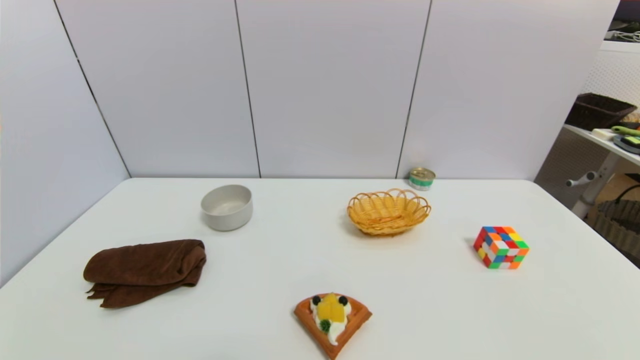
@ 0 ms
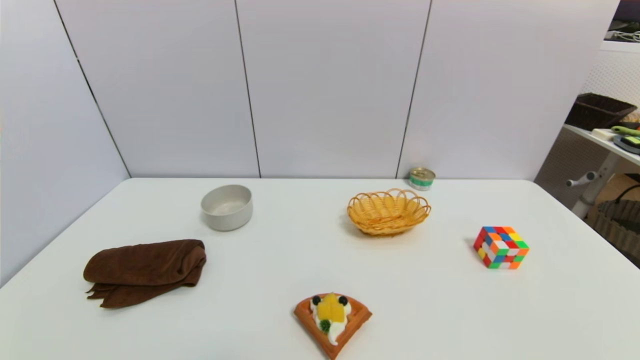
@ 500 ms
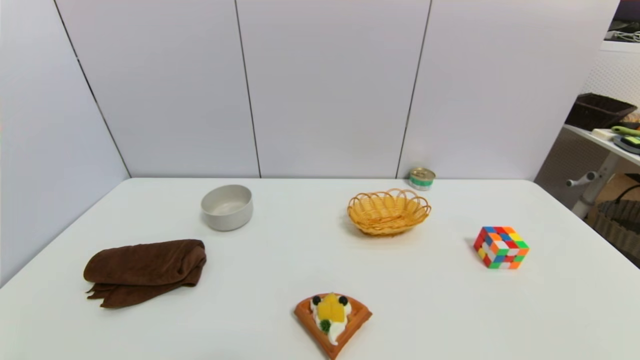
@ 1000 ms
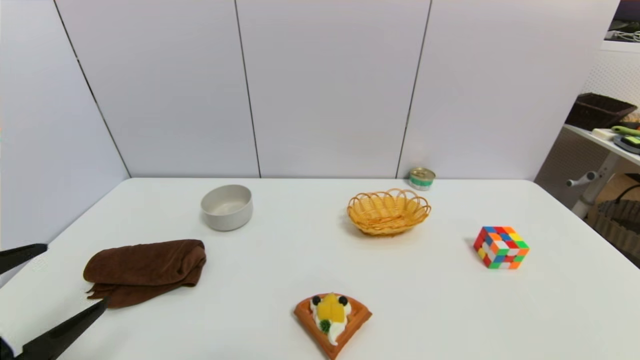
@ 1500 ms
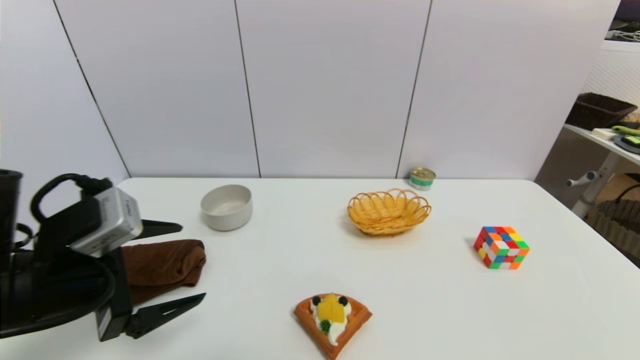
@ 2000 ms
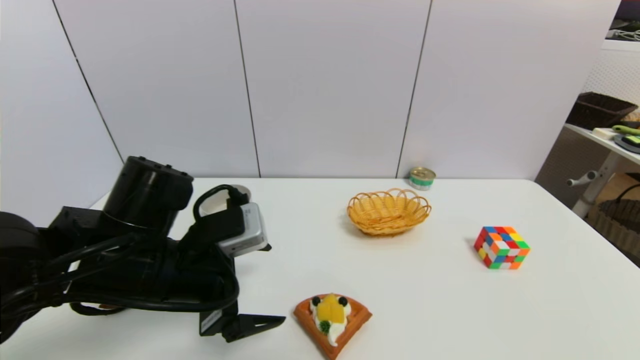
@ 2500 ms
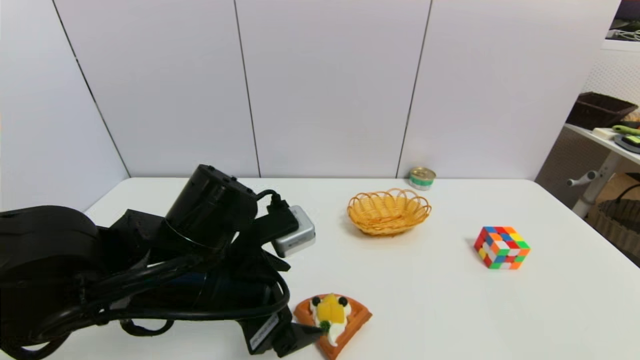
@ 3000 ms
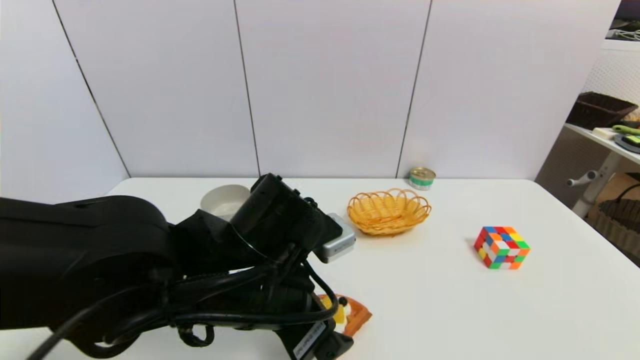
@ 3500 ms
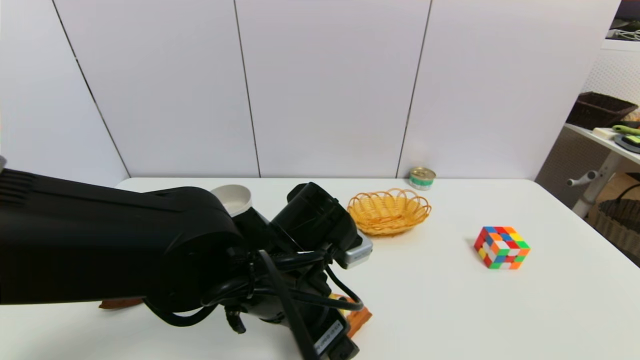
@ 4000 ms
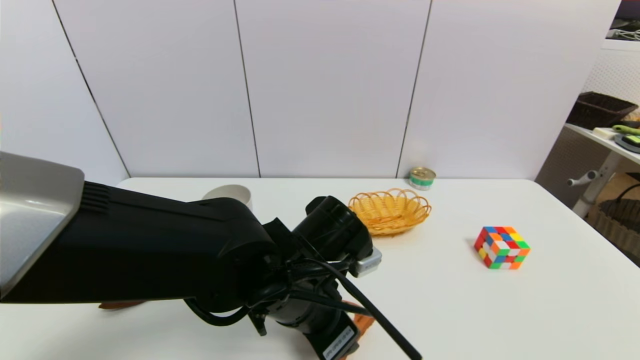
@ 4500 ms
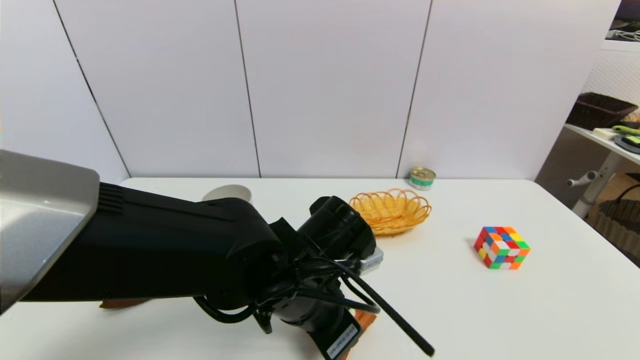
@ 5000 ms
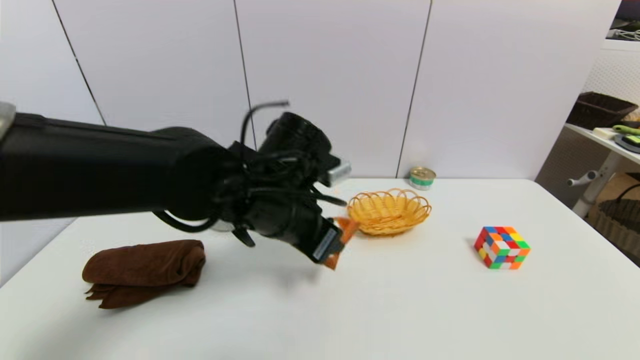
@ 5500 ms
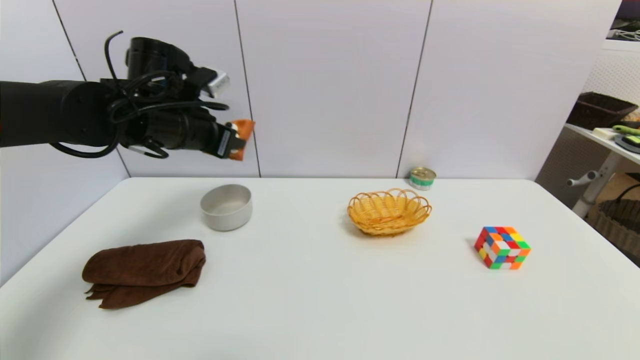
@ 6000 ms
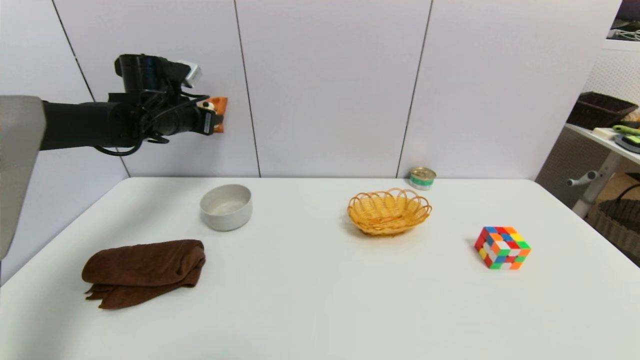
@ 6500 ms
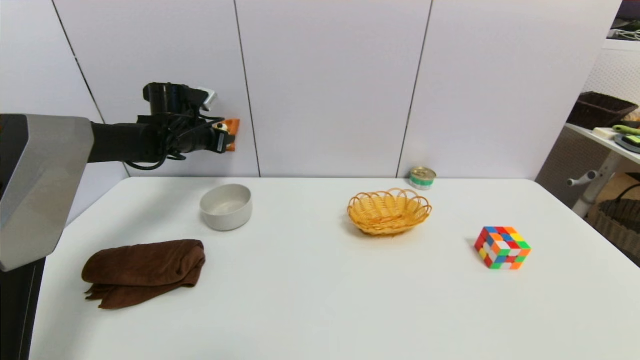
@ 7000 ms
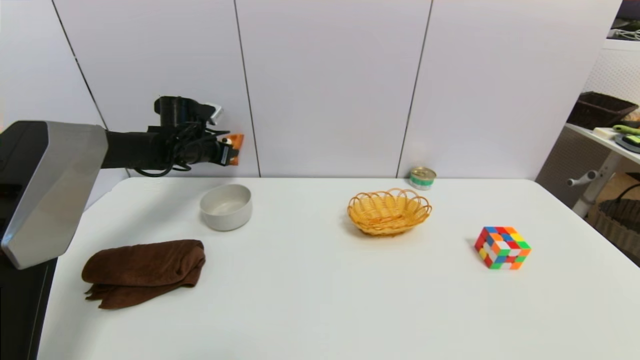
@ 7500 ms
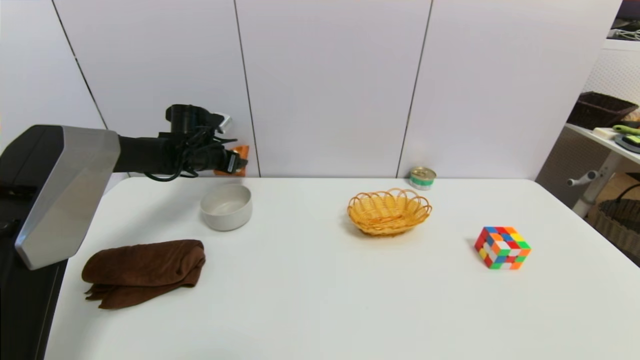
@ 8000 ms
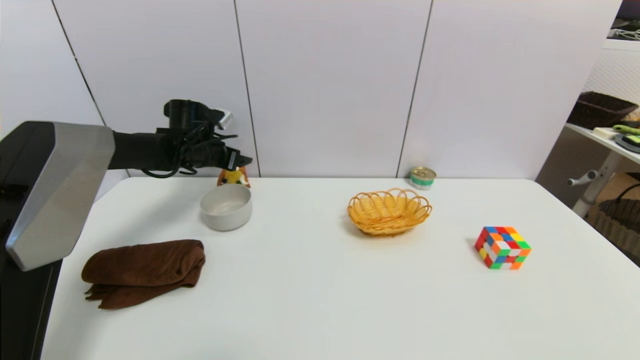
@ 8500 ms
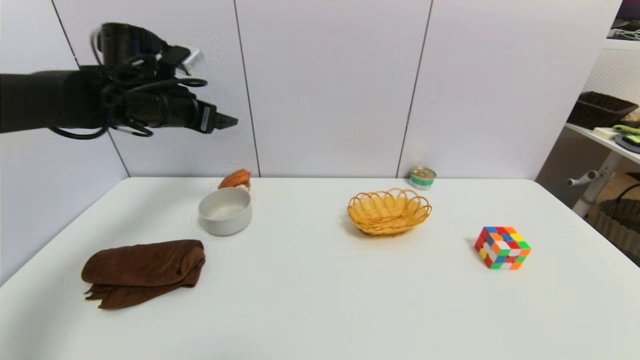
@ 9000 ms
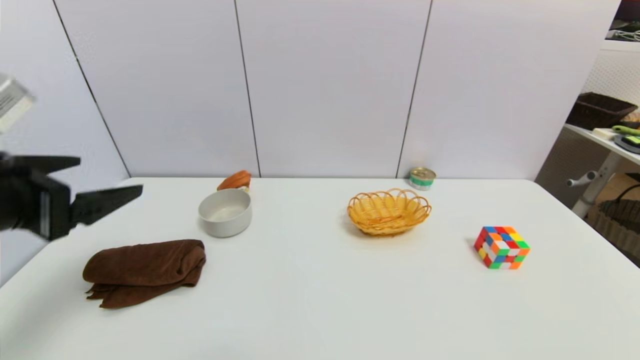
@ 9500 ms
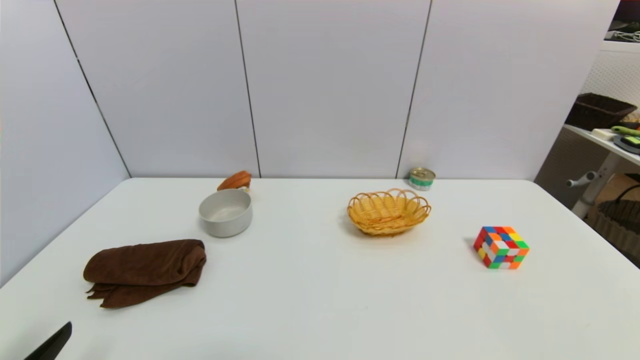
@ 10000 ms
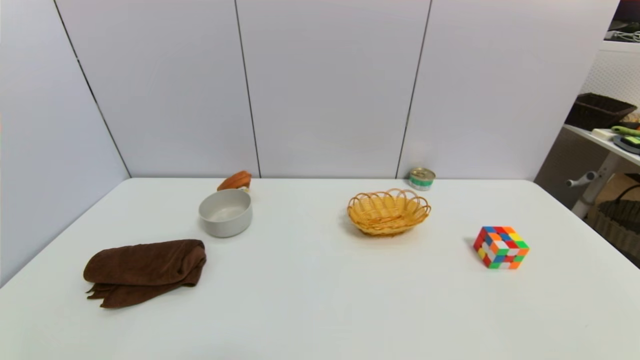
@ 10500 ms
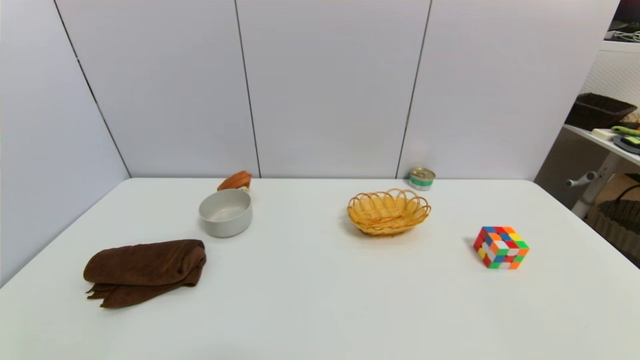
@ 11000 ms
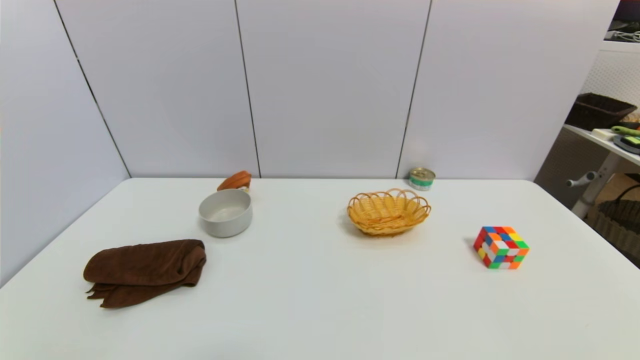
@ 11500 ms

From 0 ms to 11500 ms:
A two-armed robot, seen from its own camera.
Step, from 1500 ms to 5000 ms: Grasp the pizza with left gripper.
Step, from 5500 ms to 8000 ms: Place the pizza on the table with left gripper.
From 0 ms to 2000 ms: The left gripper goes approximately 20 cm forward and upward.
From 2000 ms to 4000 ms: The left gripper heads to the right, covering some 20 cm.
From 4000 ms to 6000 ms: The left gripper travels forward, to the left and upward by roughly 25 cm, and closes its fingers.
From 6000 ms to 7500 ms: The left gripper heads forward, downward and to the left, covering about 15 cm.
From 7500 ms to 9500 ms: The left gripper goes some 35 cm backward, and opens its fingers.
From 9500 ms to 11500 ms: The left gripper travels downward and backward by about 25 cm.
